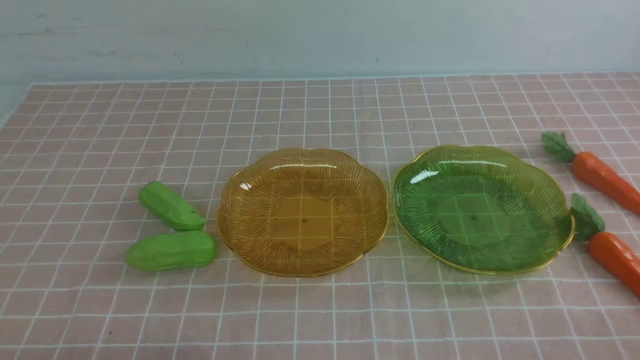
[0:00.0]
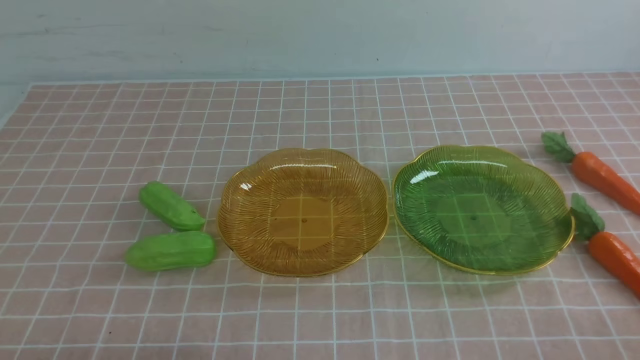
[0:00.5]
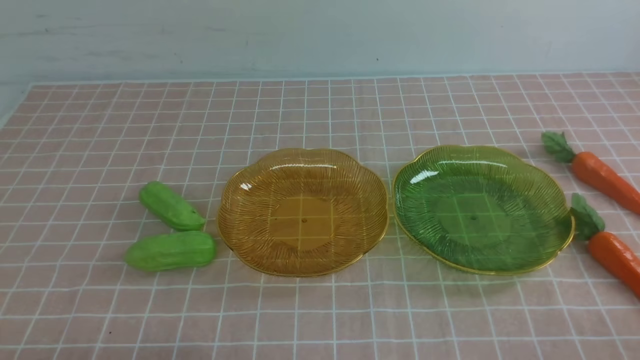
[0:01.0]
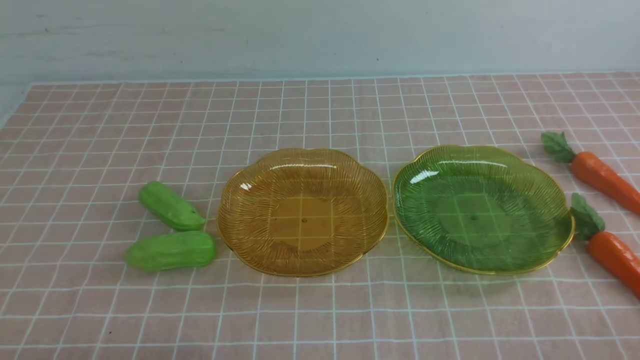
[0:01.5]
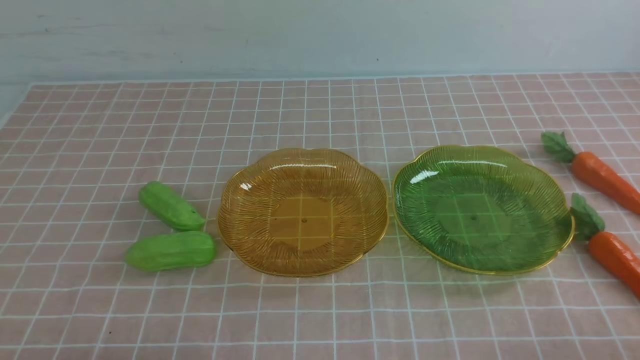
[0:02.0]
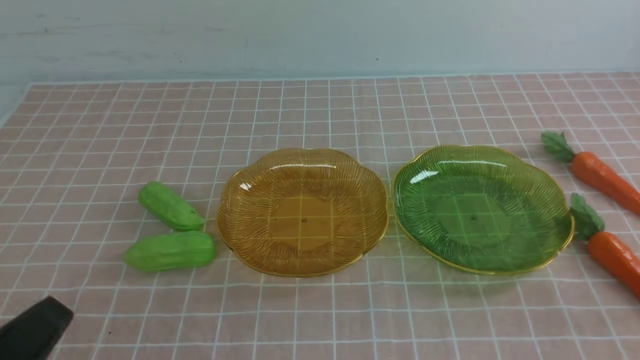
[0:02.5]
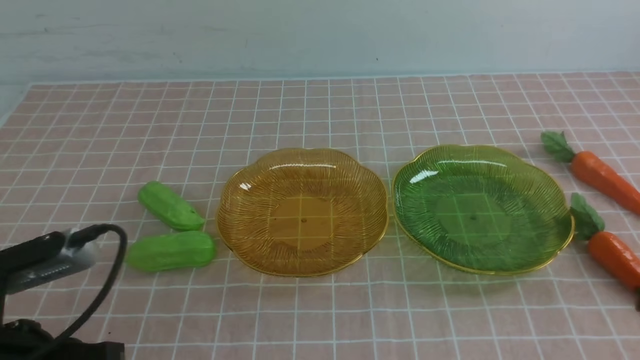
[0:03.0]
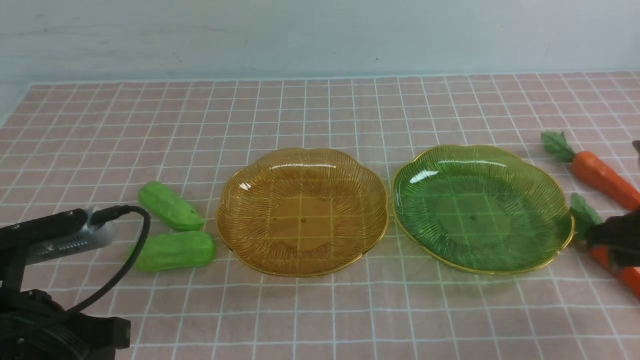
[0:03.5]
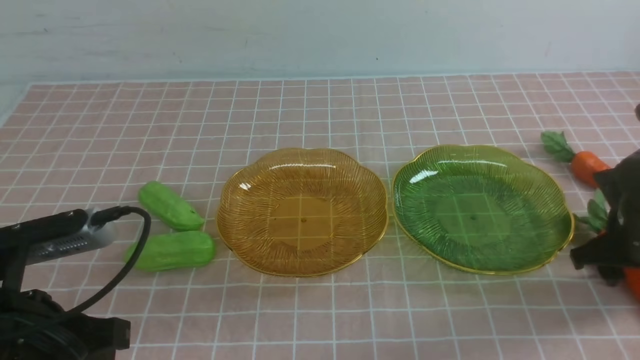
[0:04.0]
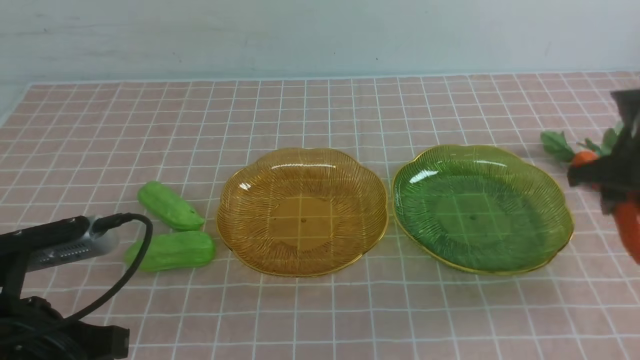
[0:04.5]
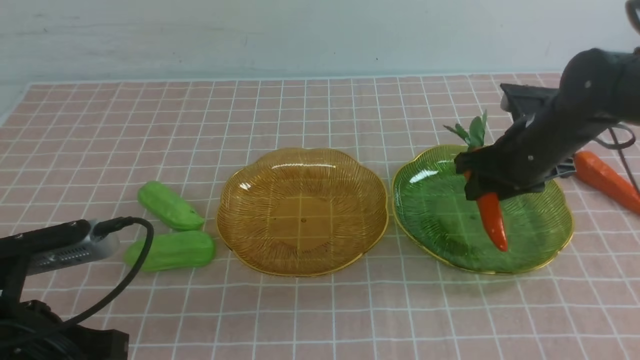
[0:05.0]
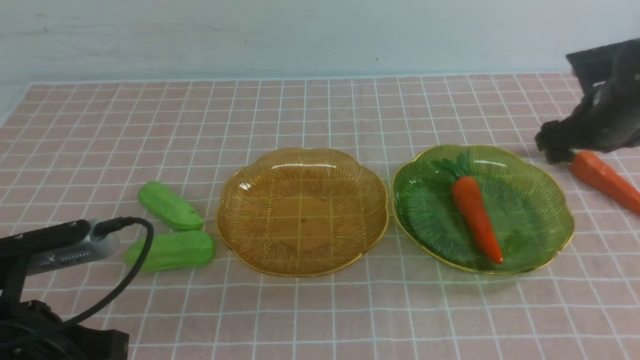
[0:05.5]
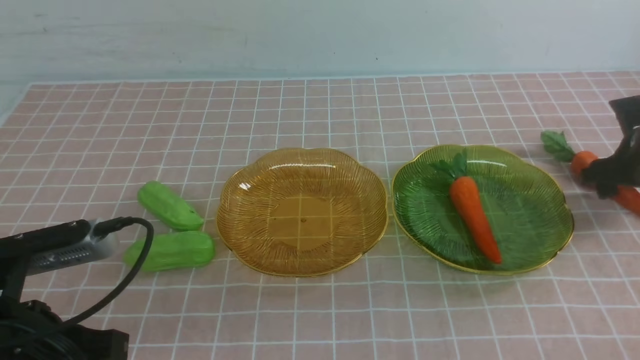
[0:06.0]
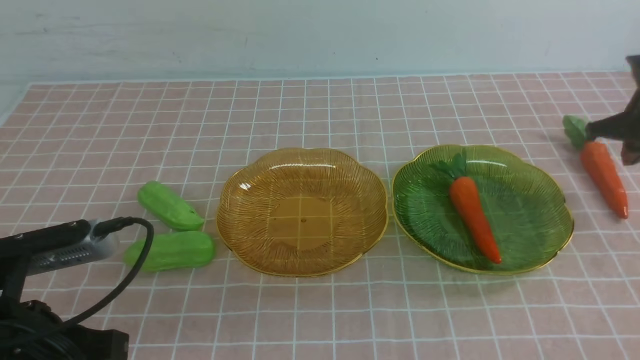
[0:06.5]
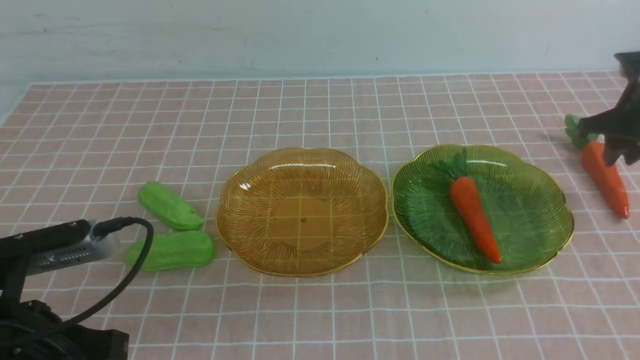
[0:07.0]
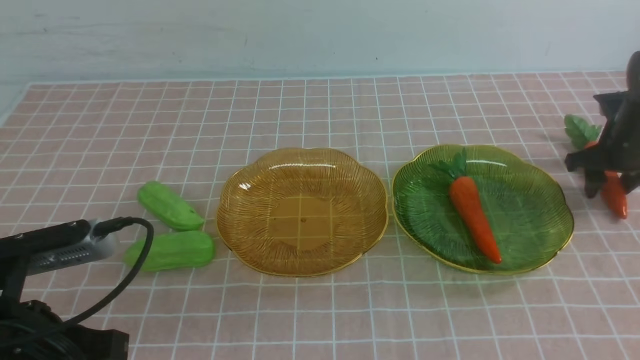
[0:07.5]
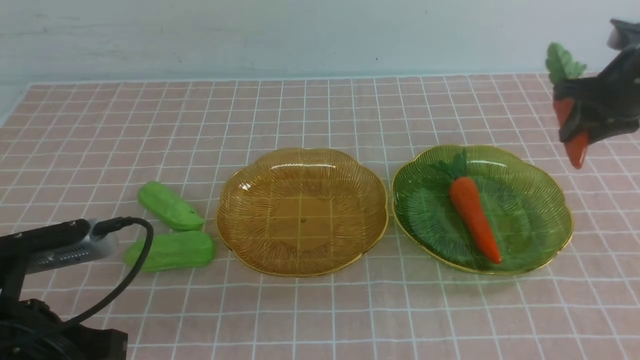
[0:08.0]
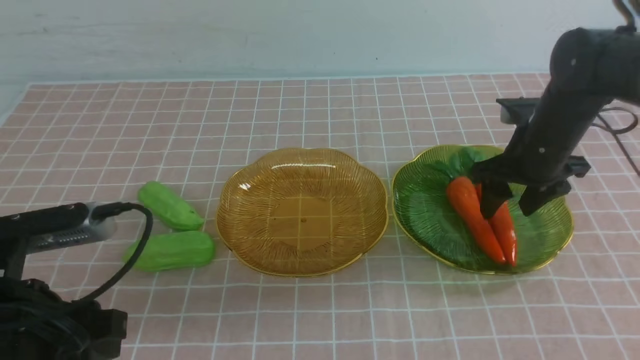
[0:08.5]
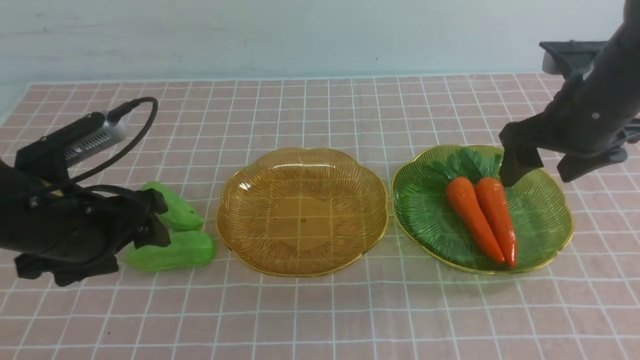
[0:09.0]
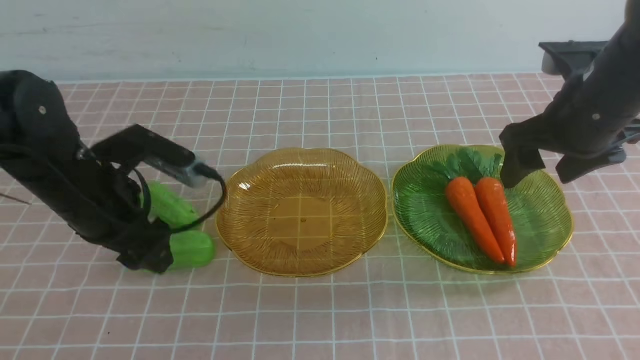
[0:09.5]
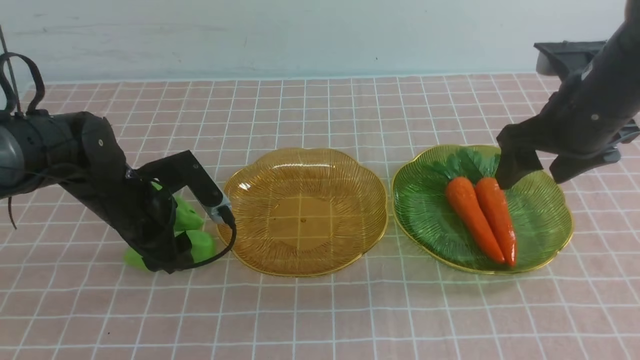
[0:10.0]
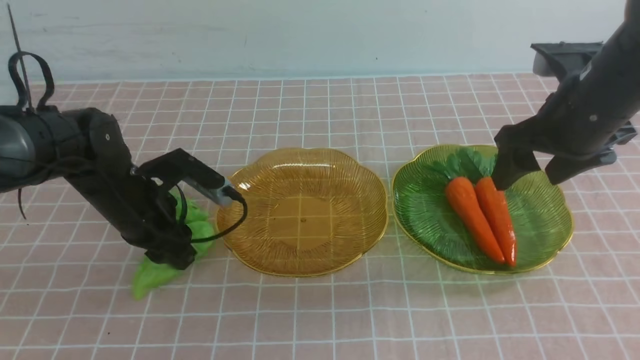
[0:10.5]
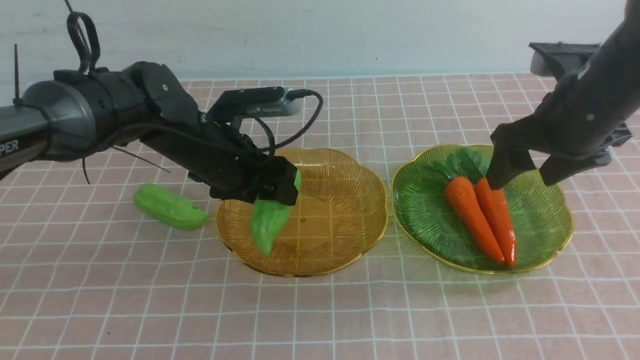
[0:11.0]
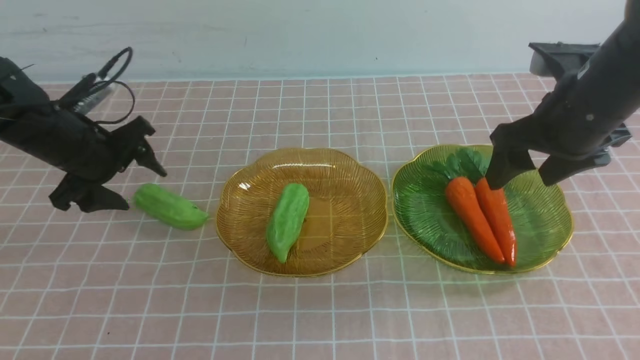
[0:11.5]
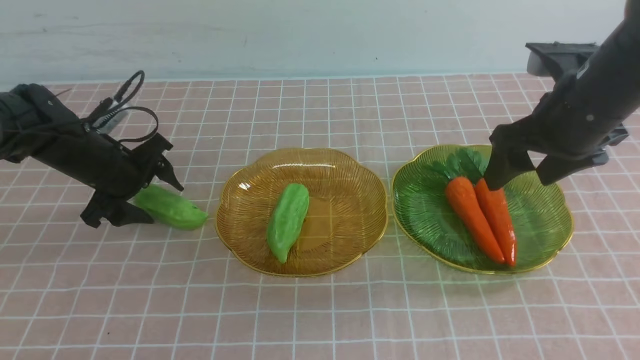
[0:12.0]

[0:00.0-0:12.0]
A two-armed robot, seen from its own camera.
Step, 0:00.0 to 0:08.5: use the right arm to grab a carrot and put it into the right plate.
Step, 0:09.0 to 0:11.0: use the left arm to grab a chayote and put it into the left plate.
0:02.0 to 0:04.0: The right gripper is displaced forward by some 25 cm, and opens, while the left gripper travels forward and upward by roughly 15 cm.
0:04.0 to 0:06.0: The right gripper moves forward and to the right, about 15 cm, and closes.
0:06.0 to 0:08.0: The right gripper is displaced to the left, upward and backward by some 20 cm, and opens its fingers.
0:08.0 to 0:10.0: The right gripper changes place by approximately 5 cm. The left gripper is displaced forward by about 15 cm.
0:10.0 to 0:12.0: The left gripper moves about 10 cm to the left and comes back, and opens, then closes again.

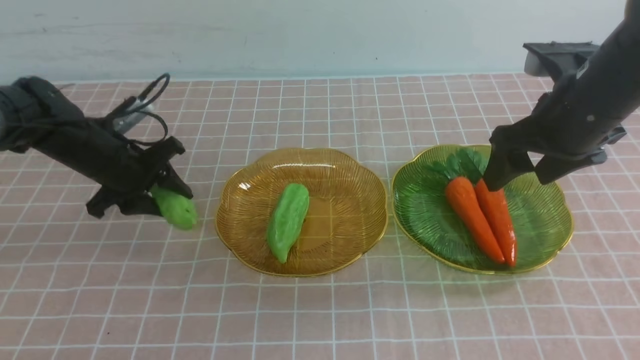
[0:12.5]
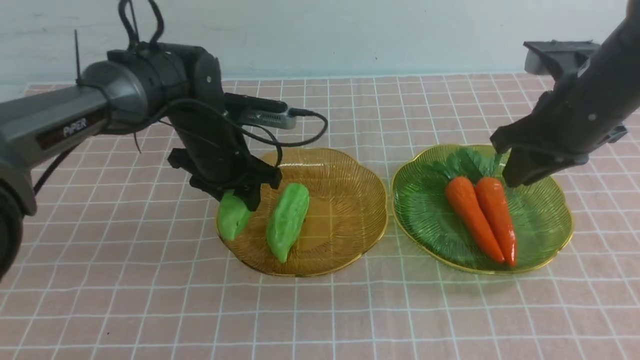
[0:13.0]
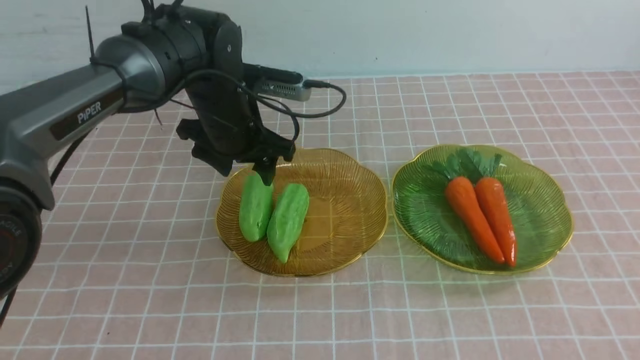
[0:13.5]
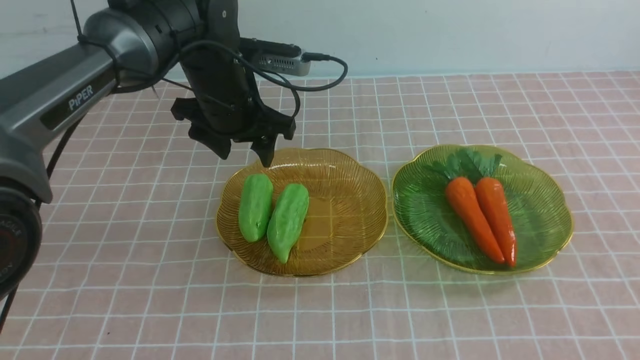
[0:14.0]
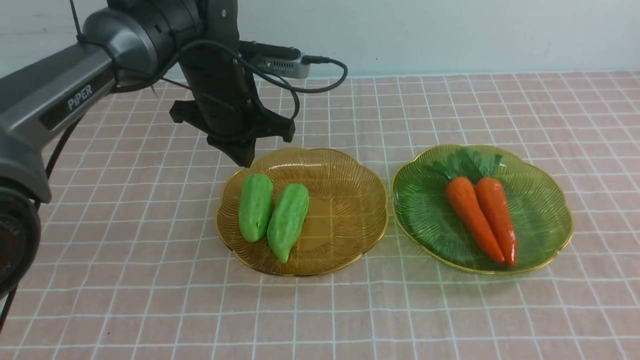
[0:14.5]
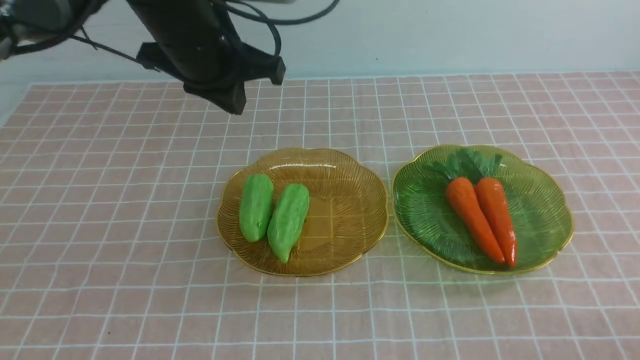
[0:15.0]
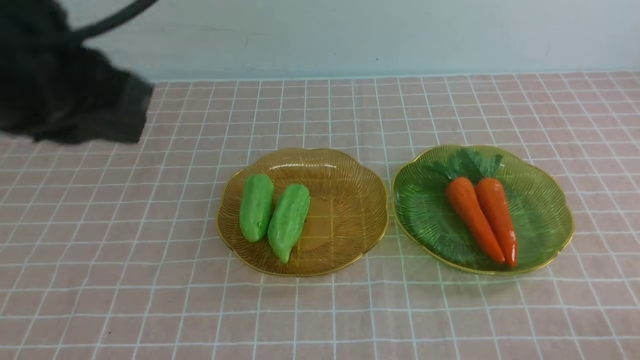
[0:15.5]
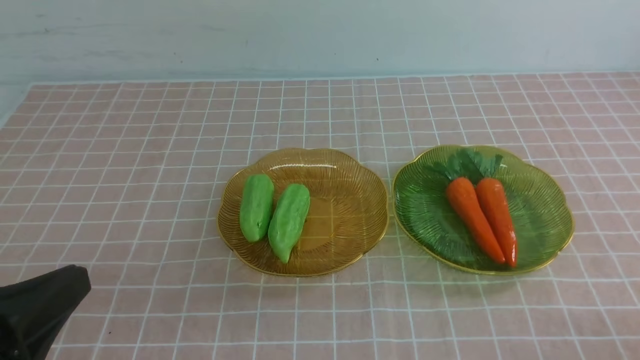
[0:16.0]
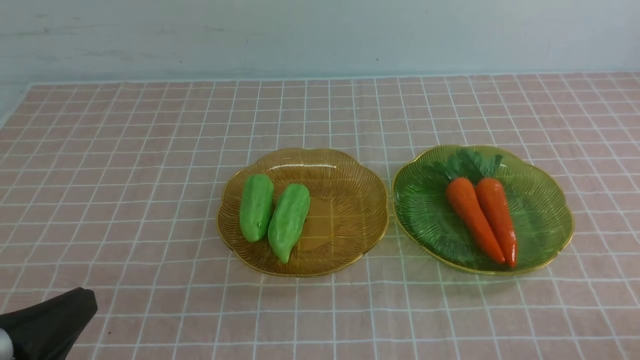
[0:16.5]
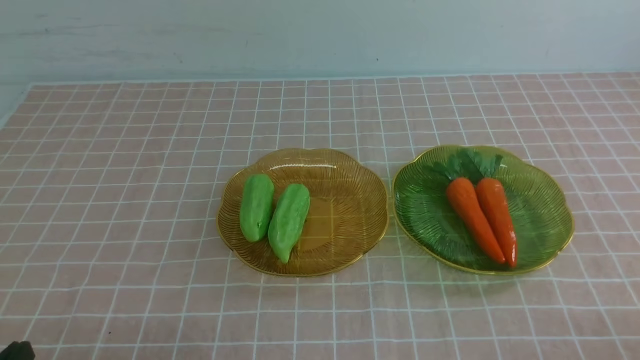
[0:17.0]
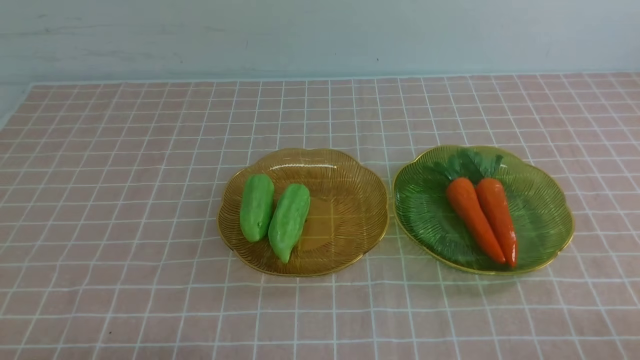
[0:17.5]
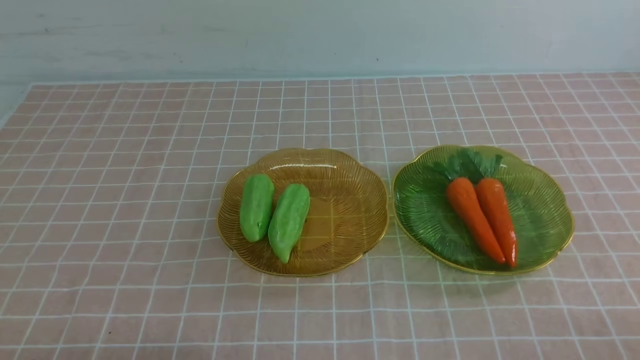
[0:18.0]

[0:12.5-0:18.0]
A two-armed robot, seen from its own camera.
0:12.5 to 0:14.5: The left gripper shifts some 25 cm upward and backward, and closes. The right gripper travels backward and downward by about 30 cm.
0:14.5 to 0:16.0: The left gripper travels downward, backward and to the left by roughly 35 cm.
0:16.0 to 0:18.0: The grippers make only small movements.

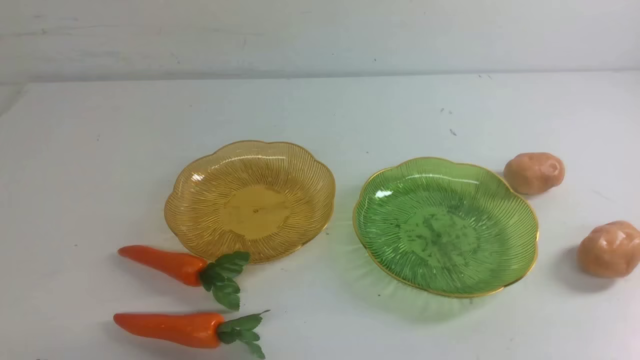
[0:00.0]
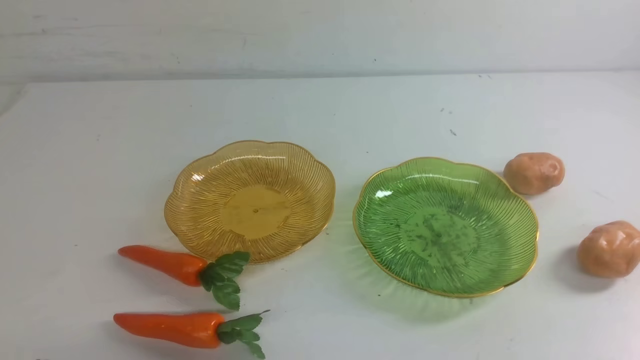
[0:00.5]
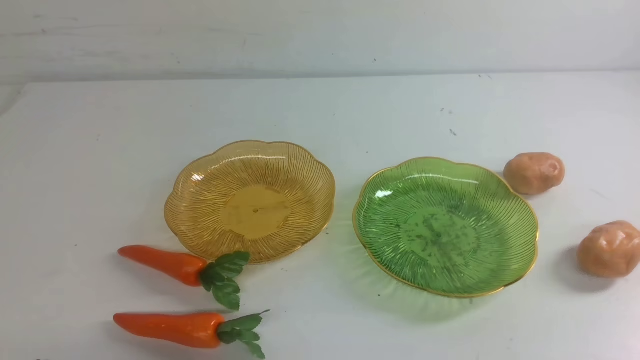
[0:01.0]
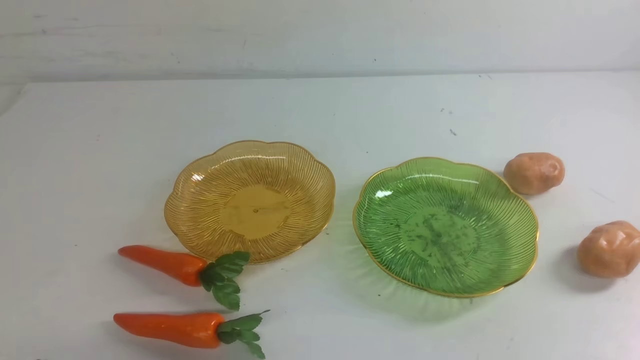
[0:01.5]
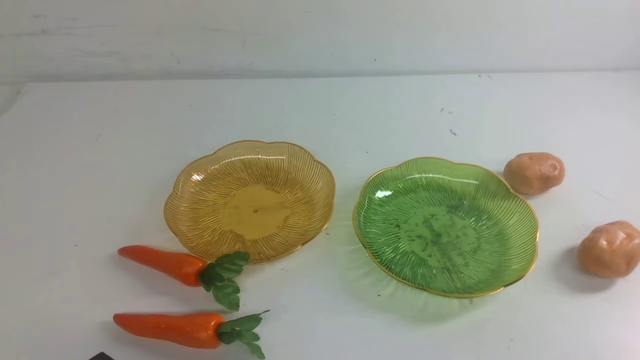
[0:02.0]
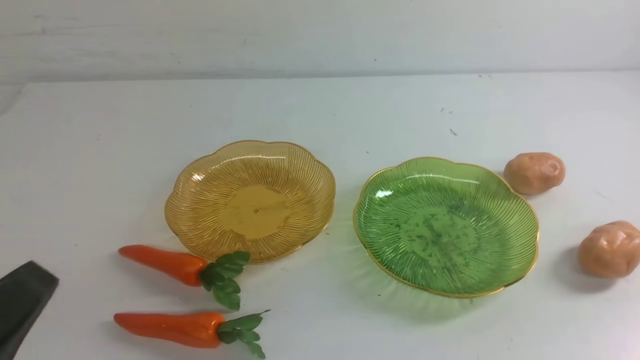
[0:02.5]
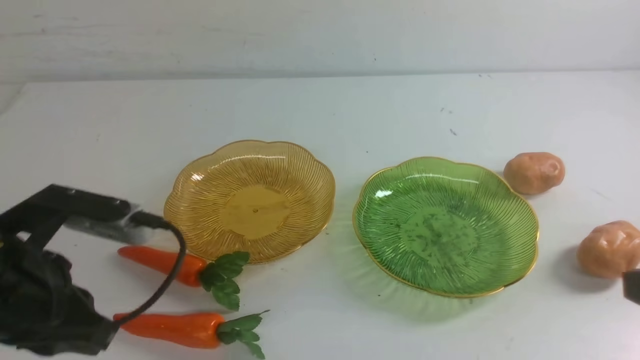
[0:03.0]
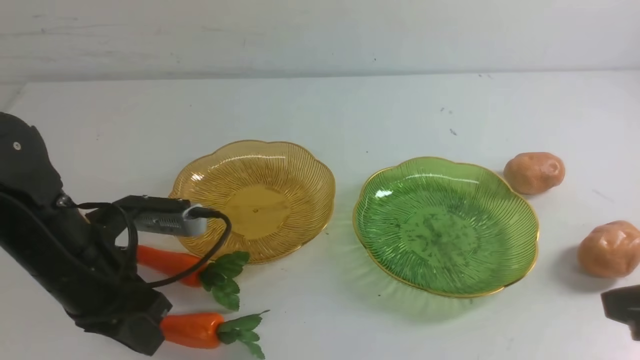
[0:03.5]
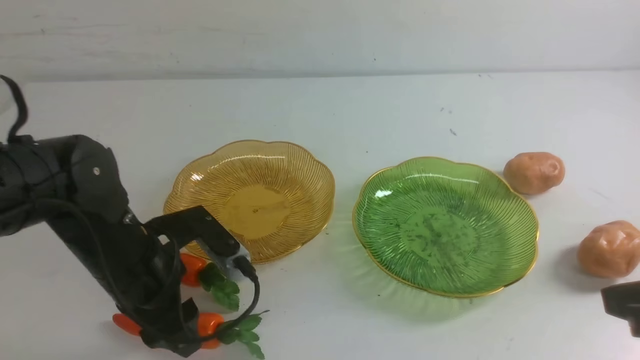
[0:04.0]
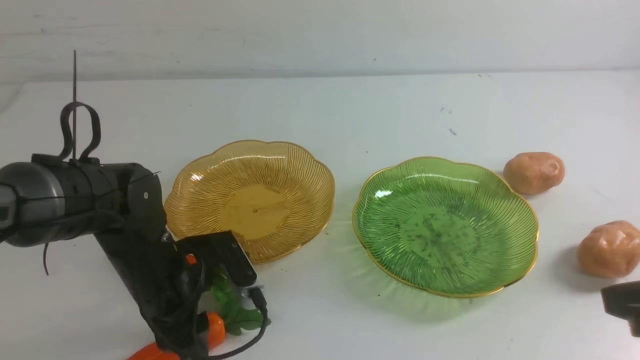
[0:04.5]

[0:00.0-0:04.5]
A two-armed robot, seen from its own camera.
0:02.0 to 0:04.5: The left gripper heads forward, covering some 25 cm, and opens up; the right gripper travels upward and forward by about 15 cm.
